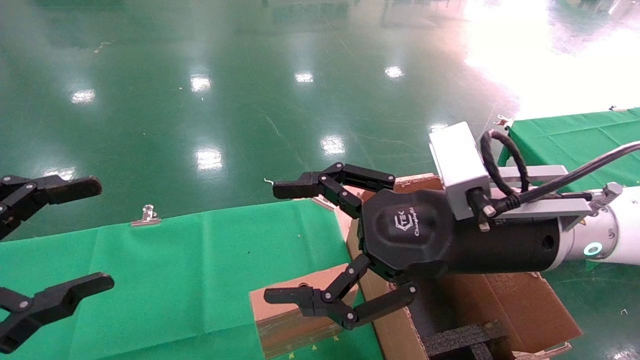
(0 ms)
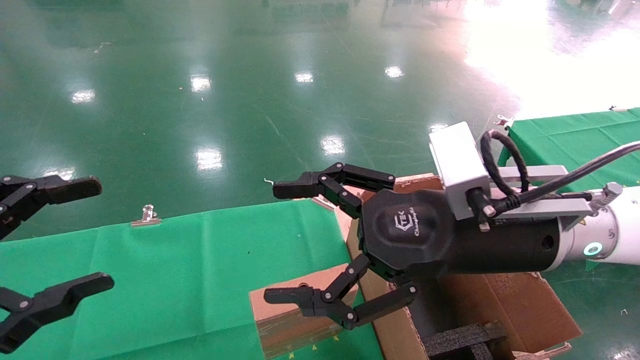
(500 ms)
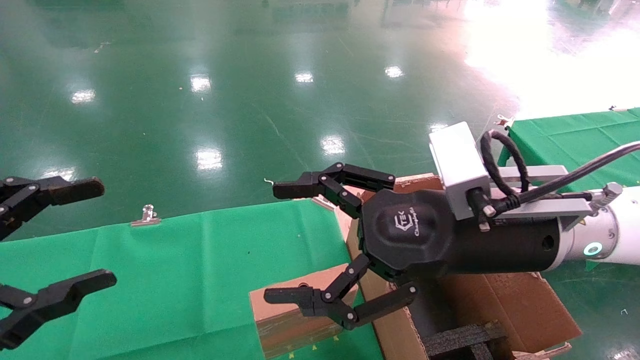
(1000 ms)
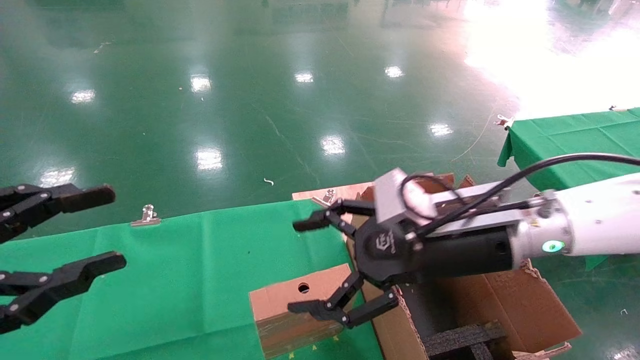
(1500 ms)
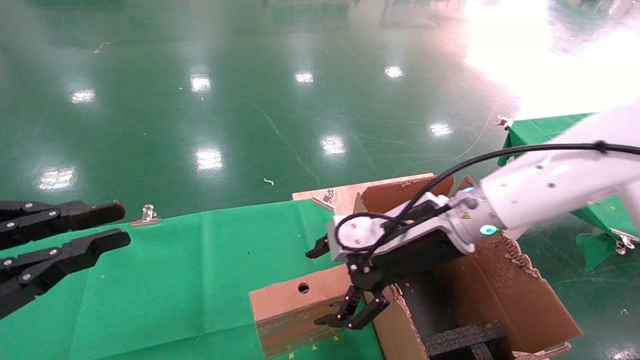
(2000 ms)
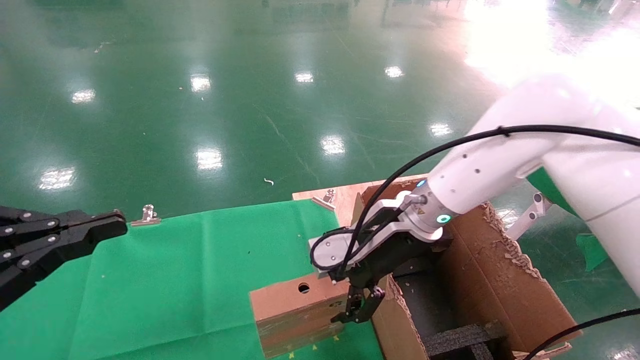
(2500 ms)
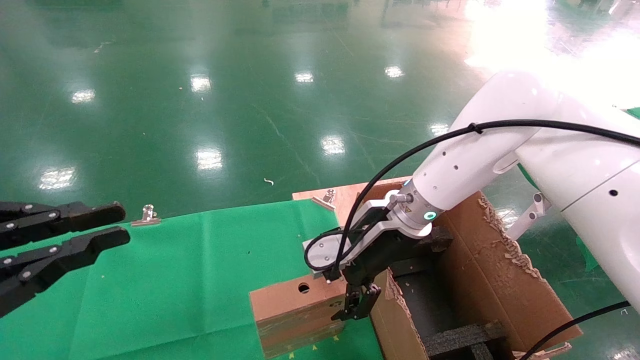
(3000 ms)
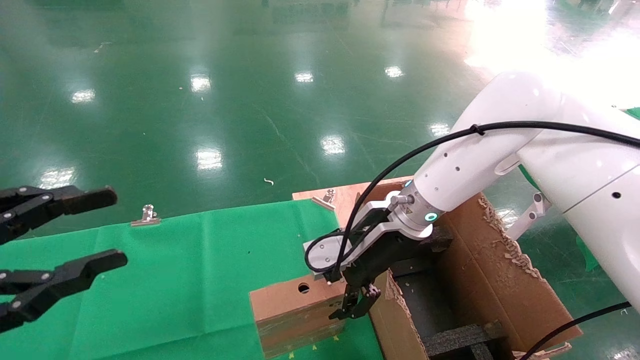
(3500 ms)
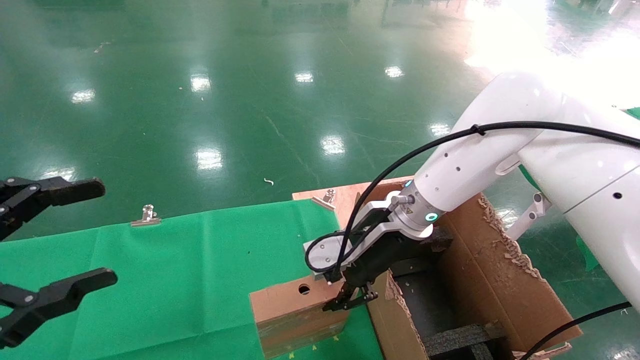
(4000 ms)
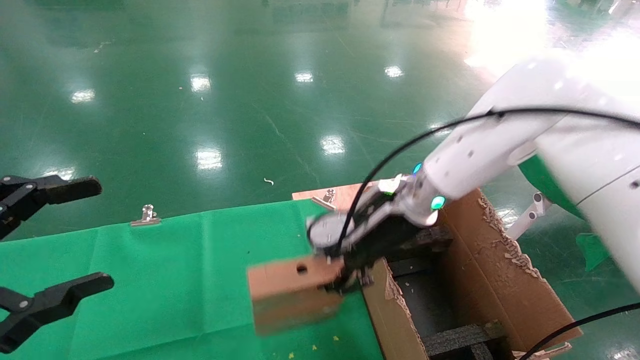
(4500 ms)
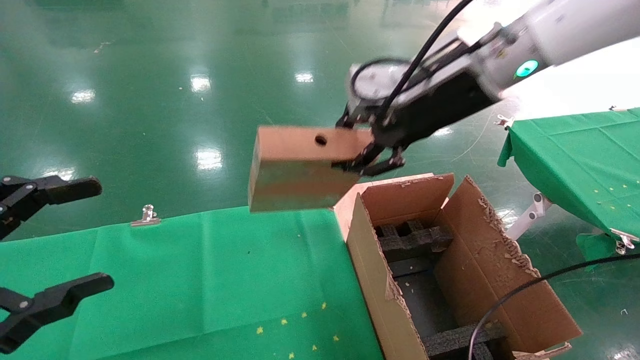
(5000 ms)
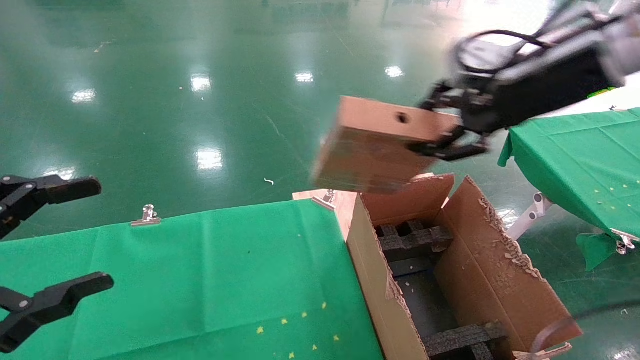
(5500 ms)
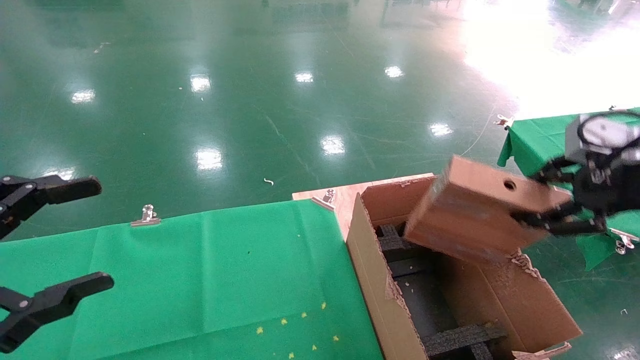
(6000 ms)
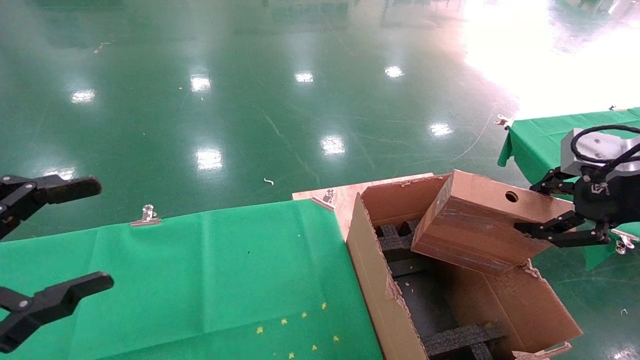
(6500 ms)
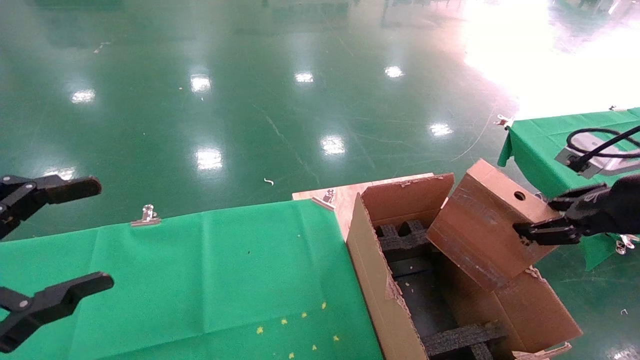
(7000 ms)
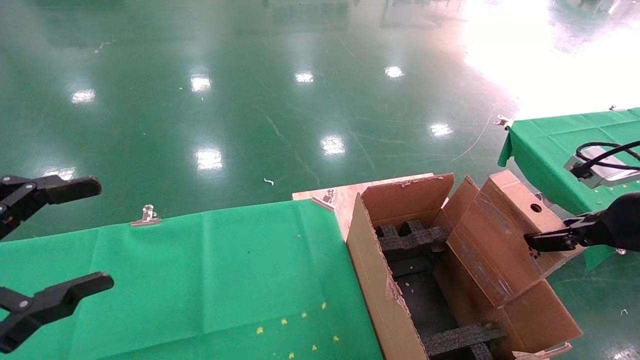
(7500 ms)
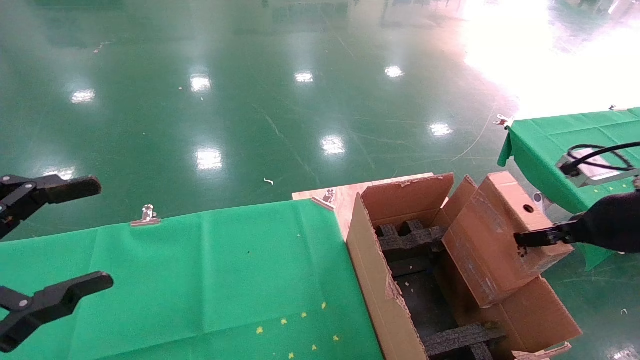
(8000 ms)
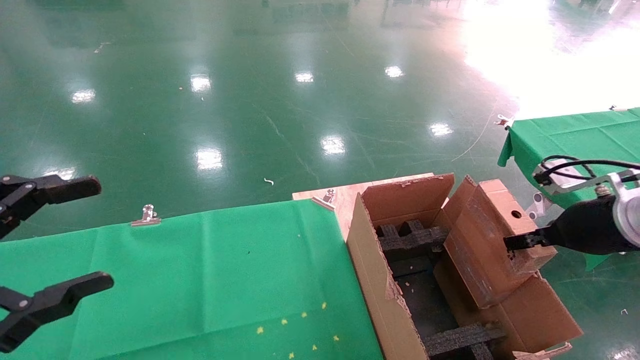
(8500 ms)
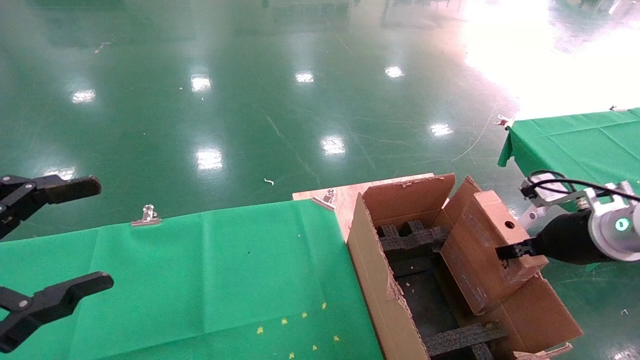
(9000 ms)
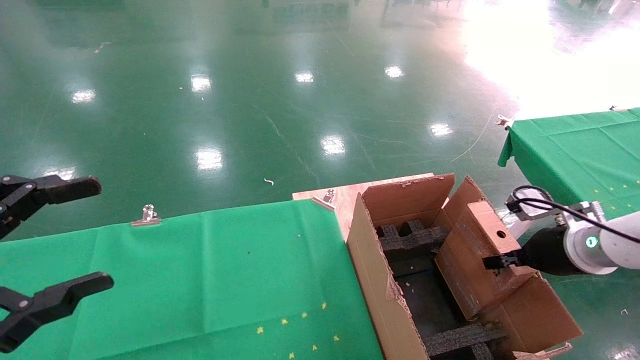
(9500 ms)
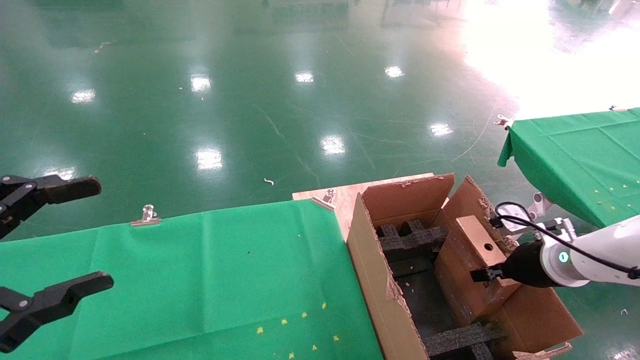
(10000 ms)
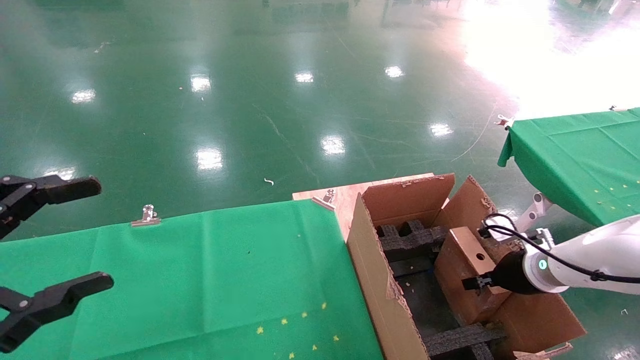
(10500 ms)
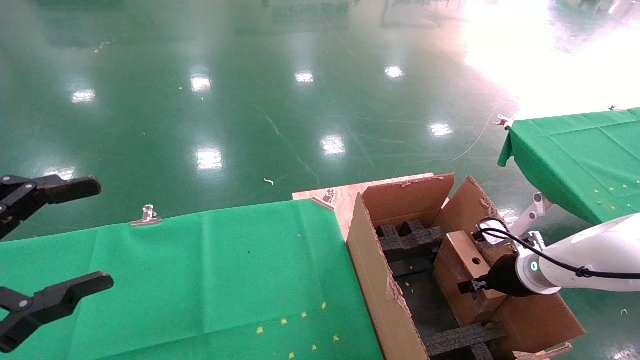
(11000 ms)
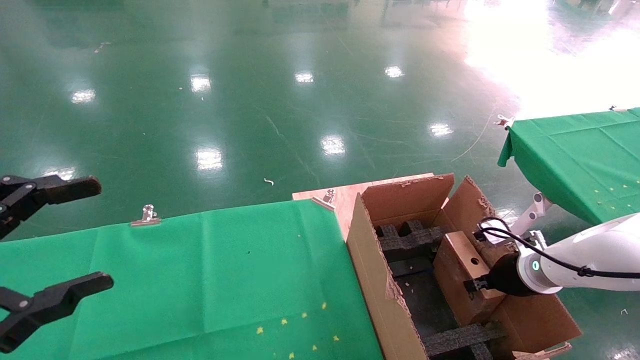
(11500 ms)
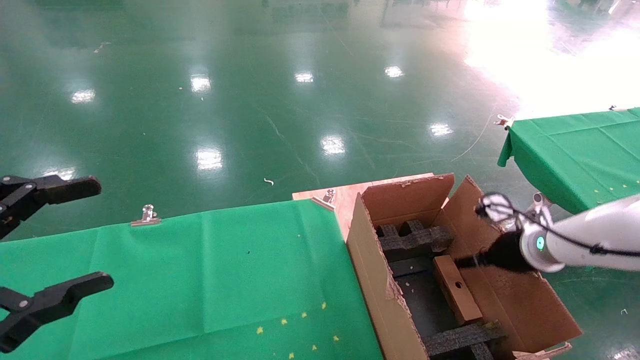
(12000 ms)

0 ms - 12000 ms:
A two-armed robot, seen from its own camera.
Task of the whole recording: using a robotic arm to pick up a cardboard box and palace it the carton.
Step, 1500 ms - 4000 ms: Pick up the mouse and the power cord paper box.
Step, 4500 ms - 11500 ms: Place the mouse and the power cord paper box into the container.
0 ms - 2000 ms: The left gripper closes. Meanwhile the right gripper heads forward, covering roughly 10 cm.
2000 ms - 4000 ms: The right gripper moves about 5 cm, and closes, while the left gripper opens.
4000 ms - 6000 ms: The right gripper shifts approximately 35 cm to the right, backward and upward, and closes up.
6000 ms - 8000 ms: The right gripper travels downward by some 10 cm.
8000 ms - 10000 ms: The right gripper goes approximately 15 cm downward and forward.
10000 ms - 12000 ms: The right gripper opens.

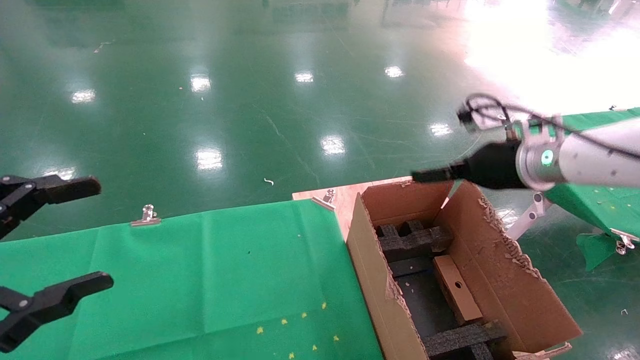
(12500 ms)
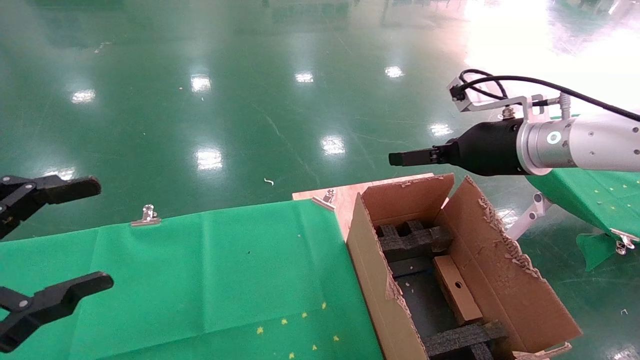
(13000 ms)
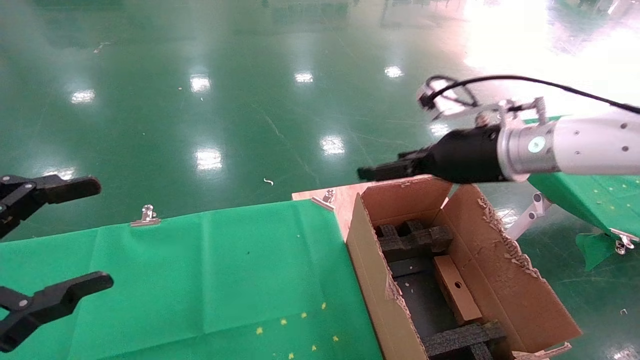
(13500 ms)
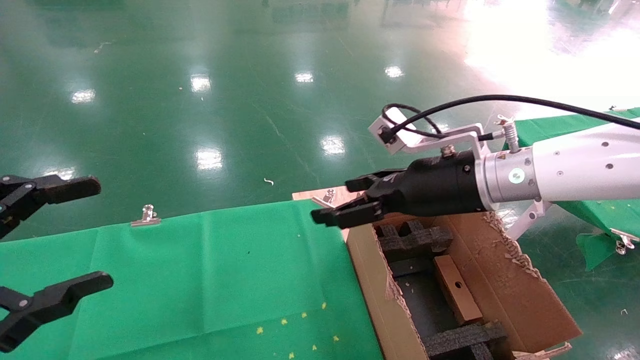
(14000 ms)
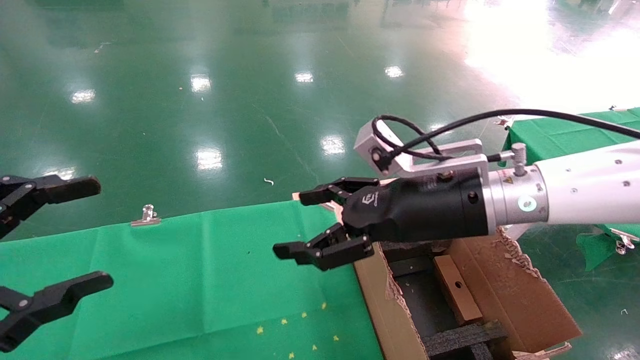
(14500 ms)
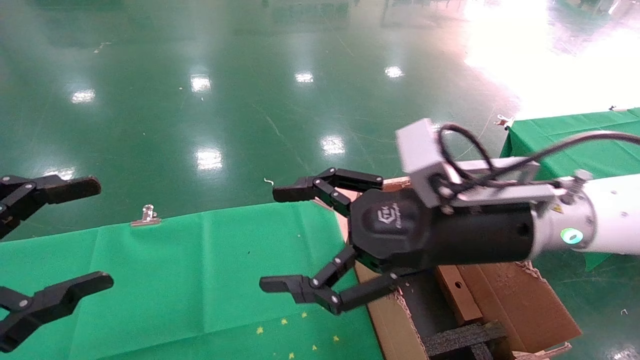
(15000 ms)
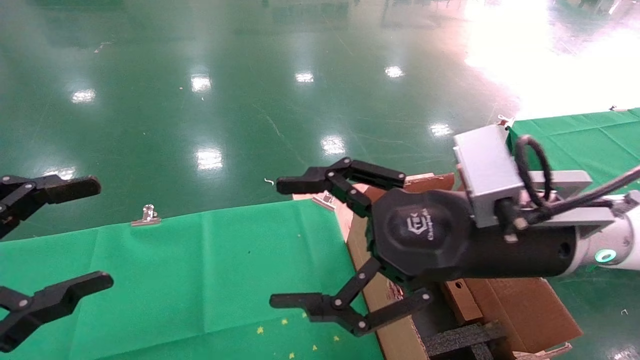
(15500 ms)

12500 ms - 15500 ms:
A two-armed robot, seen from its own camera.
Task of the whole recording: using a robotic arm to pick up a cardboard box and palace it the carton.
12500 ms - 14000 ms: The right gripper heads to the left, covering some 10 cm.
14000 ms - 15500 ms: The right gripper is displaced backward by approximately 10 cm.

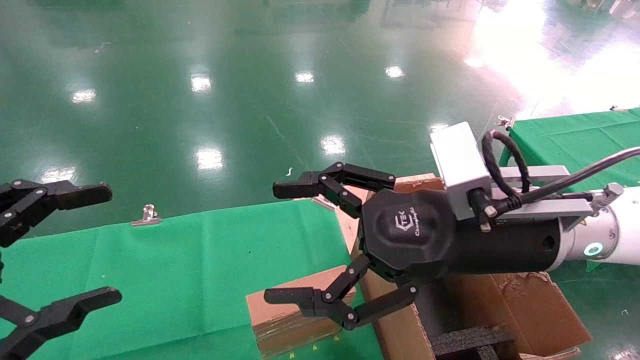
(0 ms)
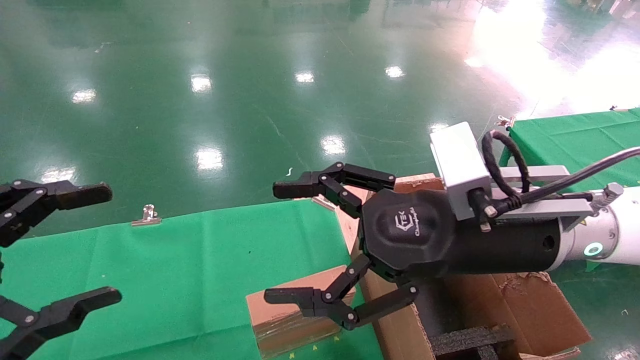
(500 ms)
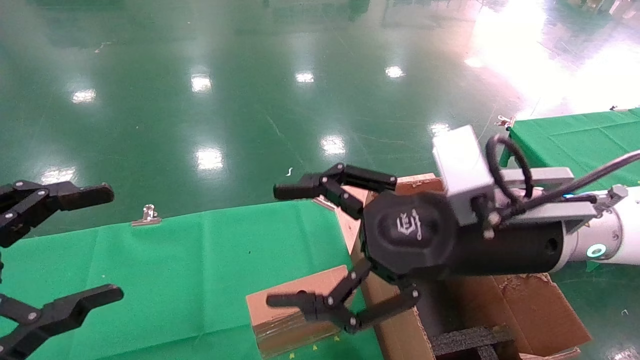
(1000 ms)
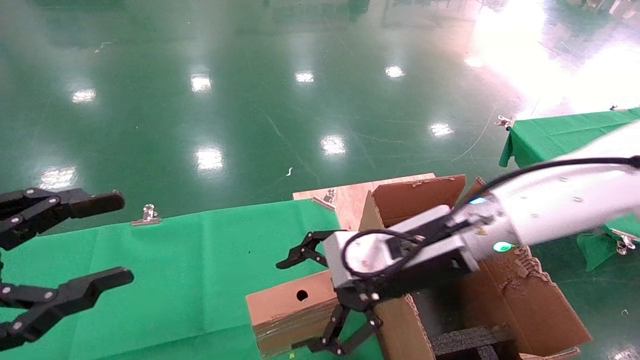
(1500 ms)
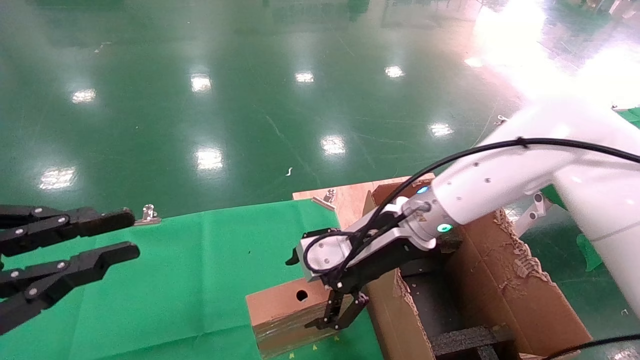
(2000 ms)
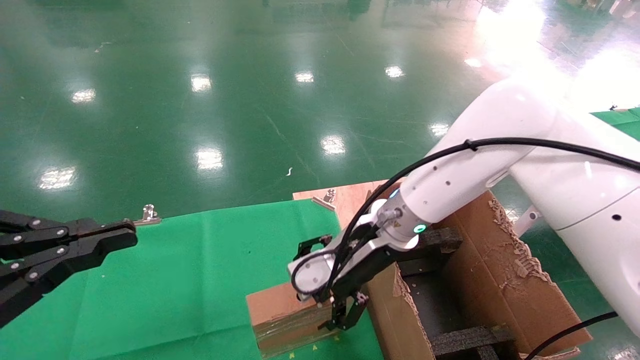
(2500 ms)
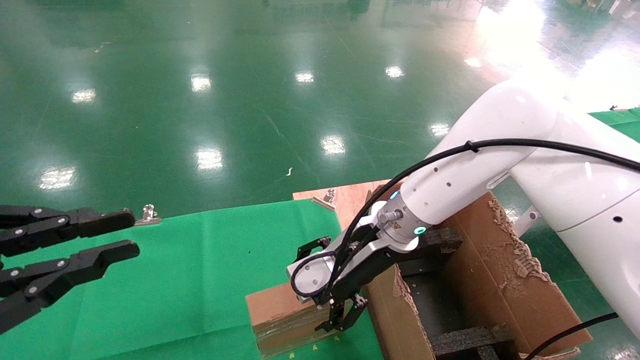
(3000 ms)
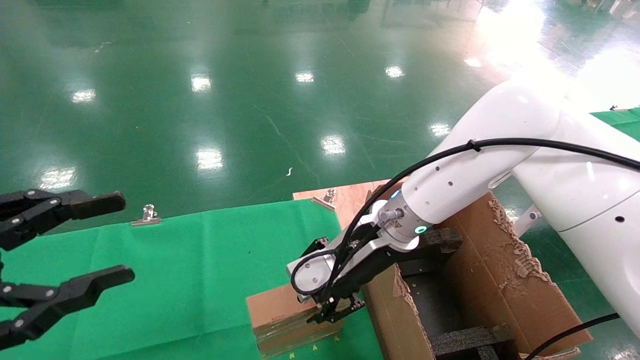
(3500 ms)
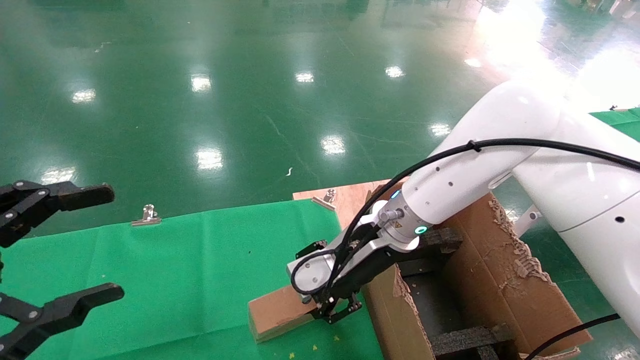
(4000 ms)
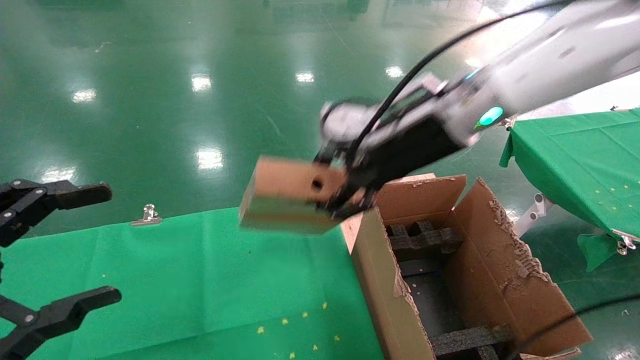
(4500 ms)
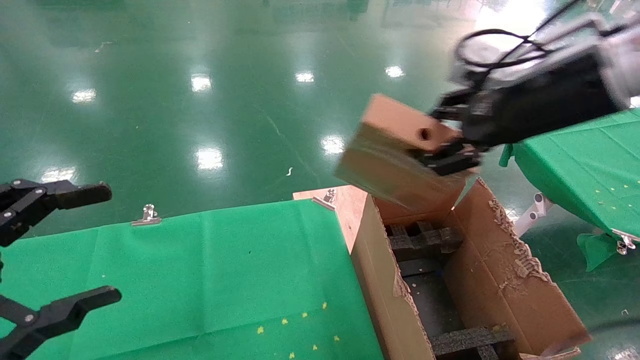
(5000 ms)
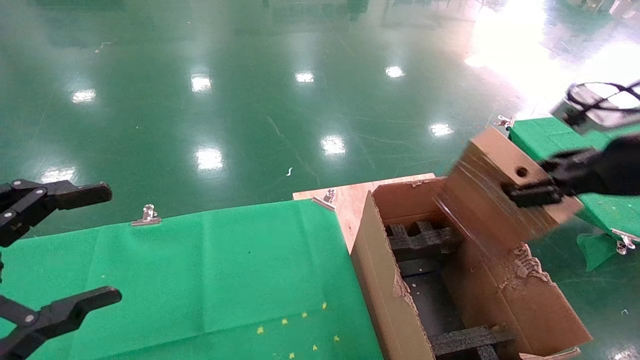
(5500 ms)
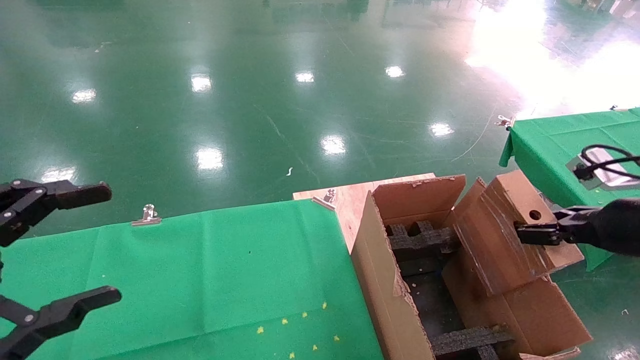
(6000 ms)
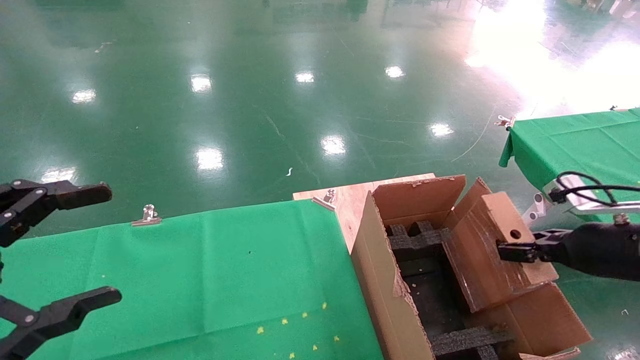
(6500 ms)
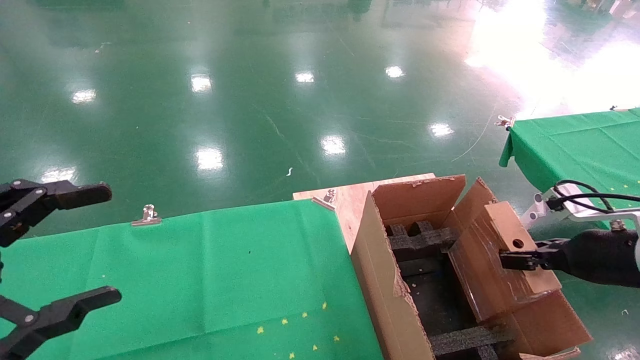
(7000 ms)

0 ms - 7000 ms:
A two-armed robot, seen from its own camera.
Task of the whole recording: using a robotic arm to pick up a cardboard box and palace it the carton.
Step, 1500 ms - 3500 ms: Pick up the mouse and the power cord paper box.
0 ms - 2000 ms: The left gripper closes its fingers, while the right gripper heads forward, to the left and downward, covering roughly 15 cm.
2000 ms - 3500 ms: The right gripper closes its fingers.
3500 ms - 5000 ms: The left gripper opens up. The right gripper goes some 25 cm to the right, upward and backward, and closes.
5000 ms - 7000 ms: The right gripper moves downward and to the right, some 25 cm.
